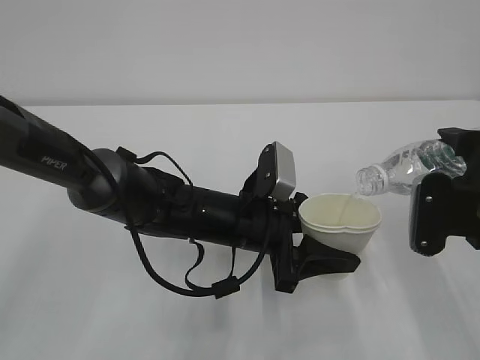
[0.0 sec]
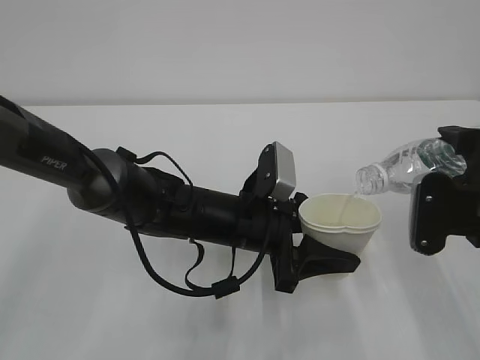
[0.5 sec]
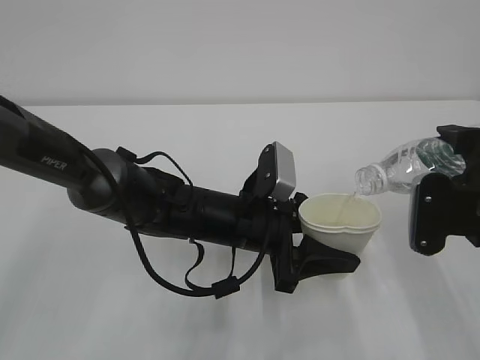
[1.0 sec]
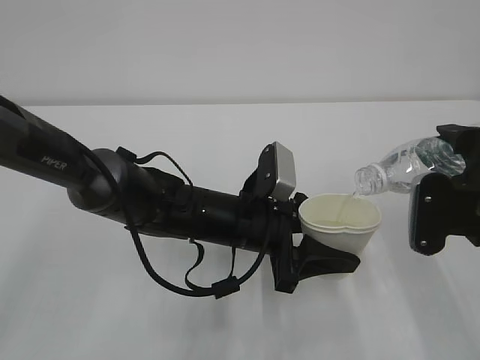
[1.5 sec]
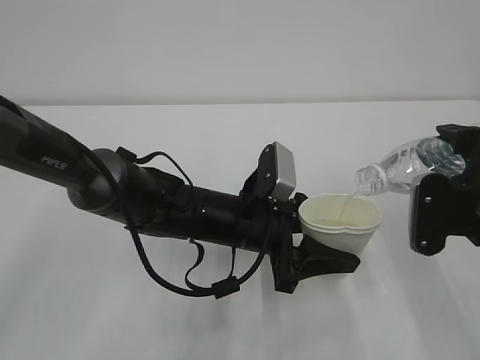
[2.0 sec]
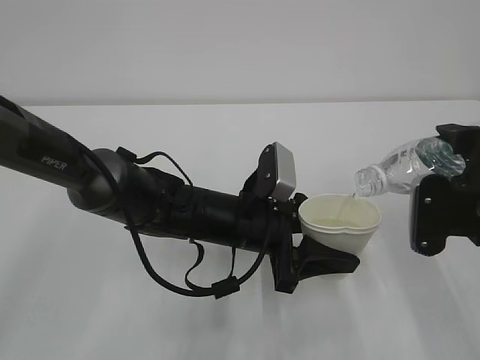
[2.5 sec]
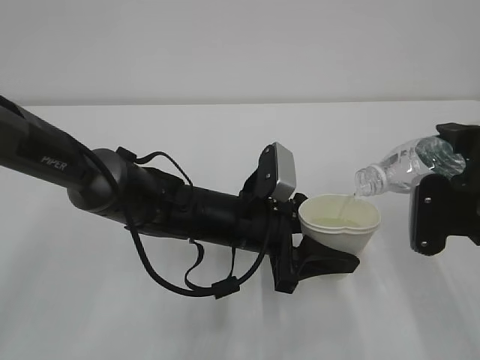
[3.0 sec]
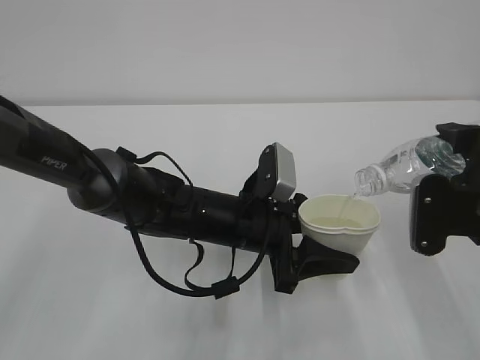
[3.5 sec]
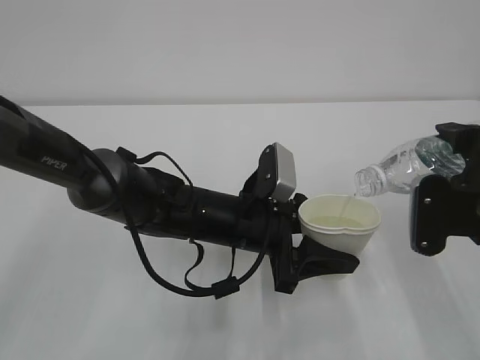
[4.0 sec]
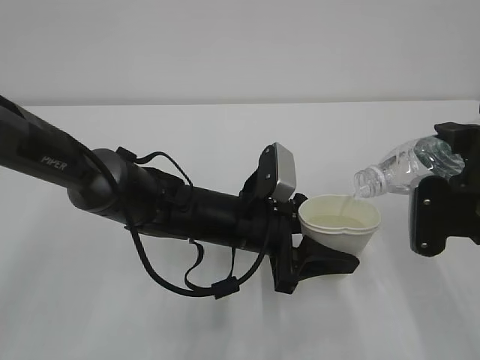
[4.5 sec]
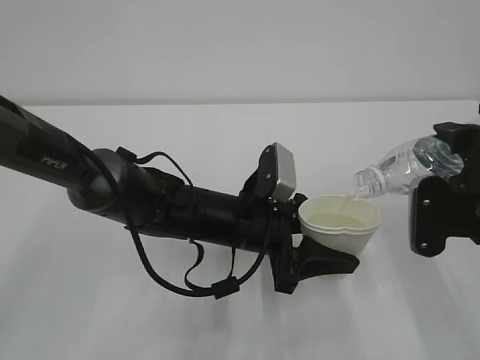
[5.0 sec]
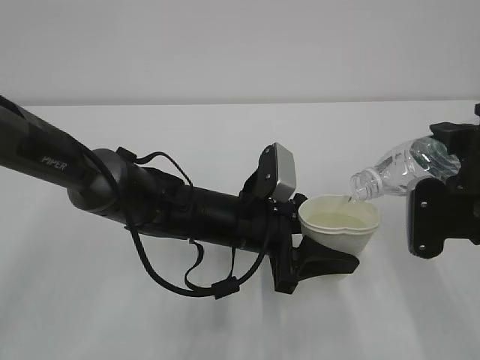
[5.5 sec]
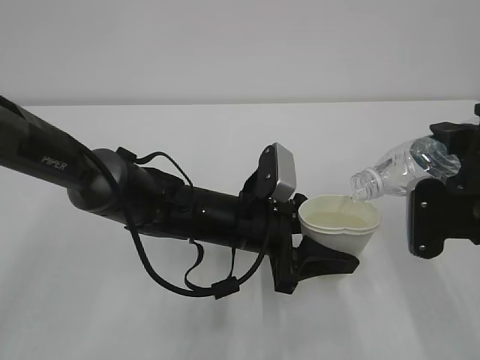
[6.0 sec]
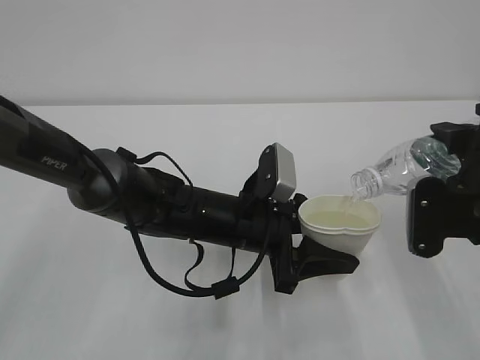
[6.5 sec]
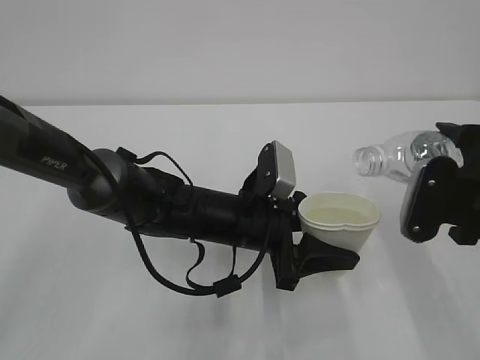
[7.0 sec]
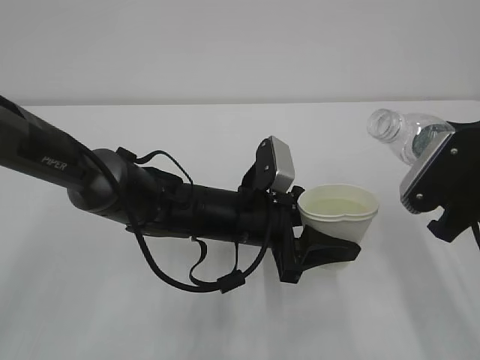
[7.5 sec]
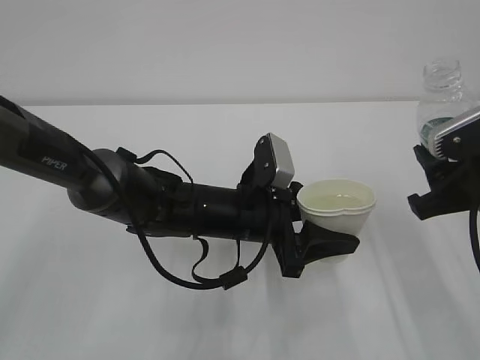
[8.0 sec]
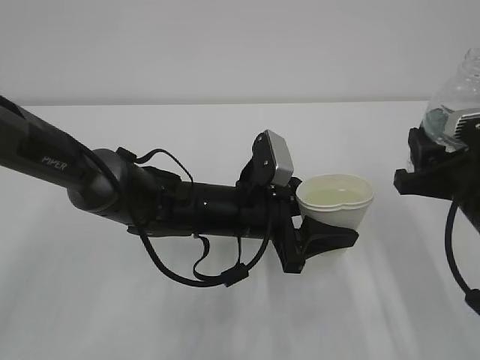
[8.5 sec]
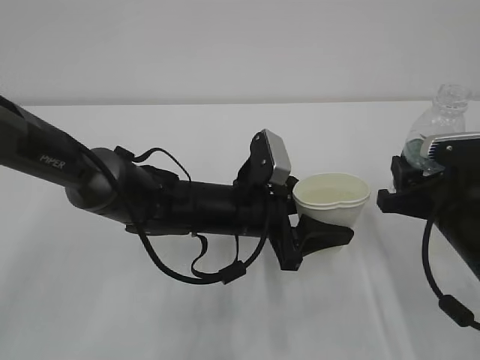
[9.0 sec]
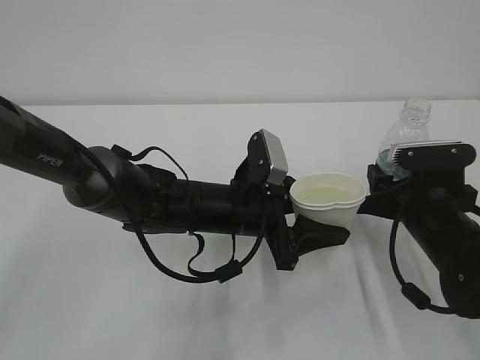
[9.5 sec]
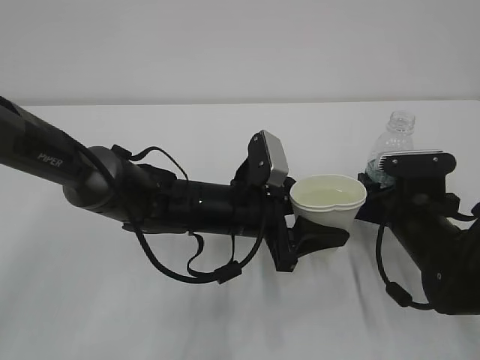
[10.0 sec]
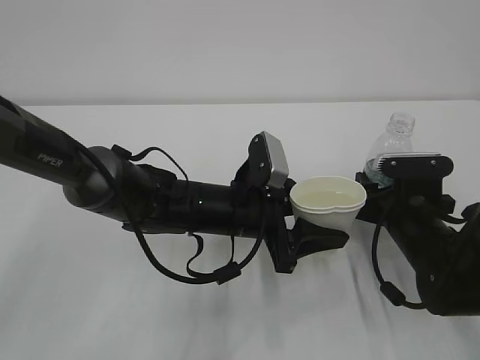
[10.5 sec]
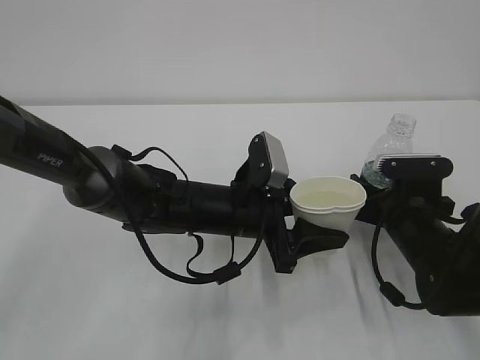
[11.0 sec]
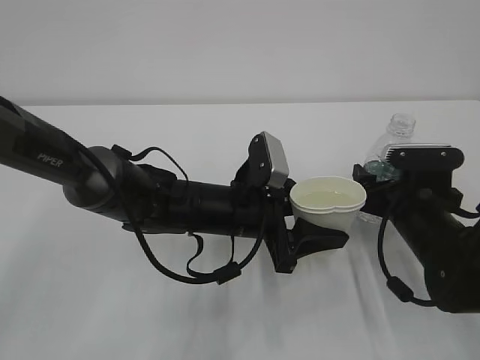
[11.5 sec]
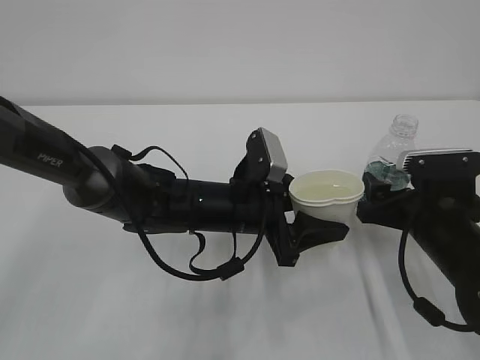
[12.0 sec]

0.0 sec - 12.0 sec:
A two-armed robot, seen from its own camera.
0.0 sec - 4.0 sec: The two grippers keep their place.
4.0 sec - 6.0 sec: Both grippers stay about where they are.
8.0 sec - 10.0 sec: The right gripper heads downward and forward, covering approximately 15 cm.
10.0 sec - 12.0 sec: The right gripper opens its fingers.

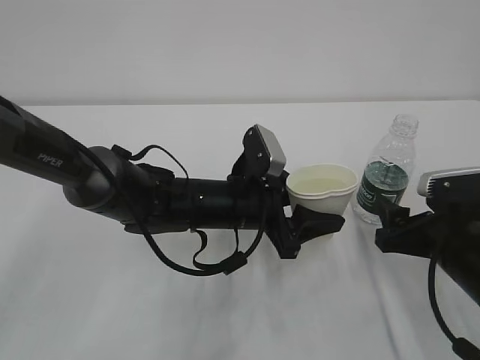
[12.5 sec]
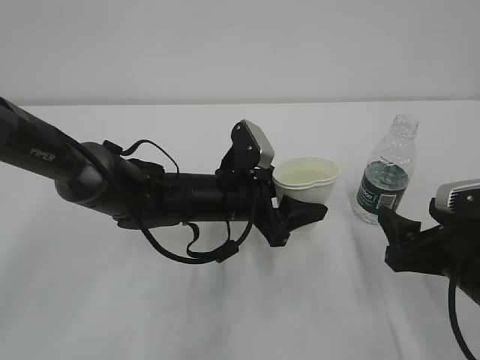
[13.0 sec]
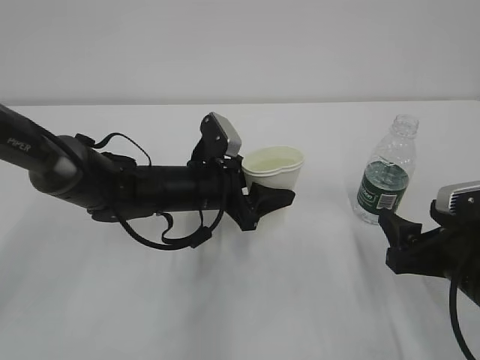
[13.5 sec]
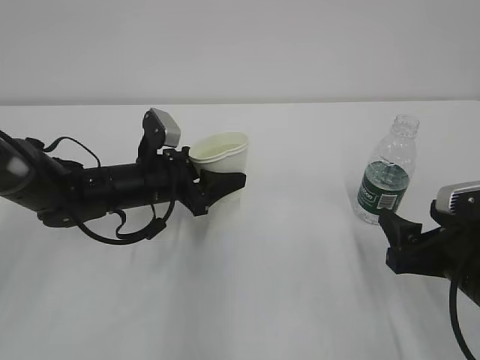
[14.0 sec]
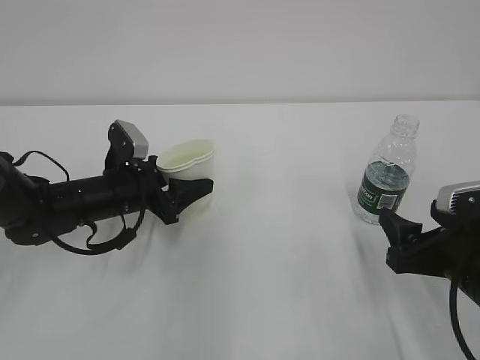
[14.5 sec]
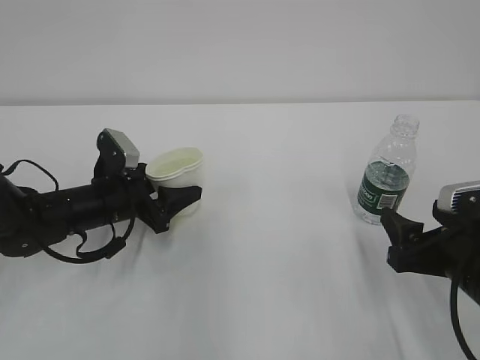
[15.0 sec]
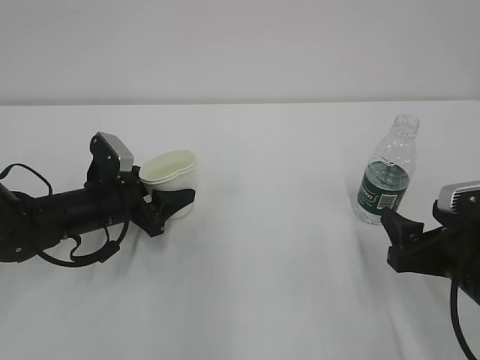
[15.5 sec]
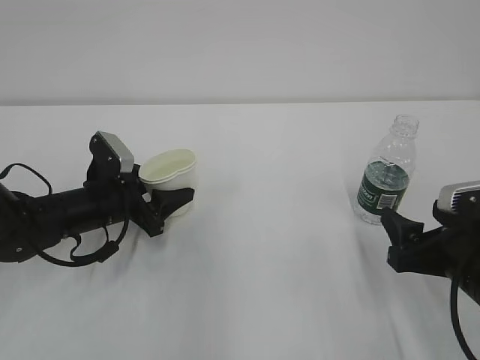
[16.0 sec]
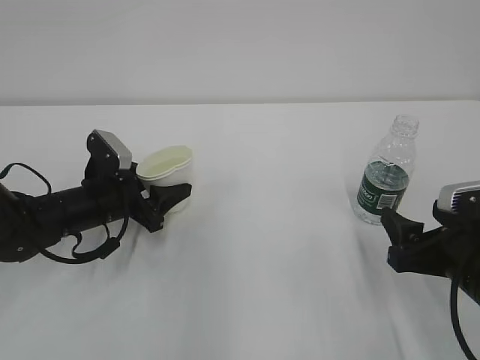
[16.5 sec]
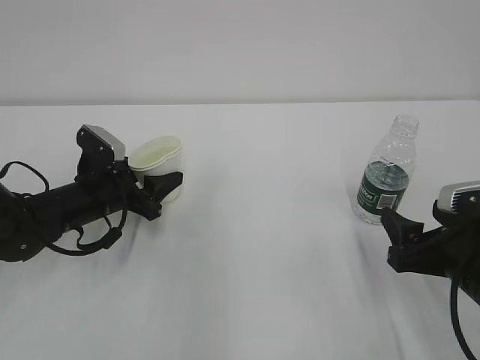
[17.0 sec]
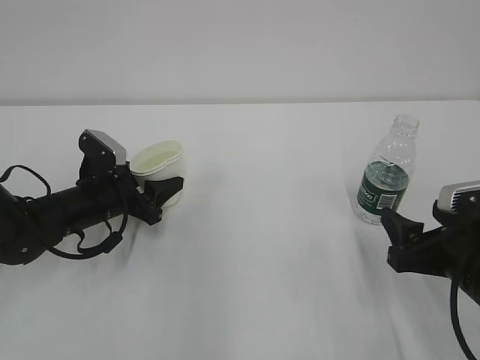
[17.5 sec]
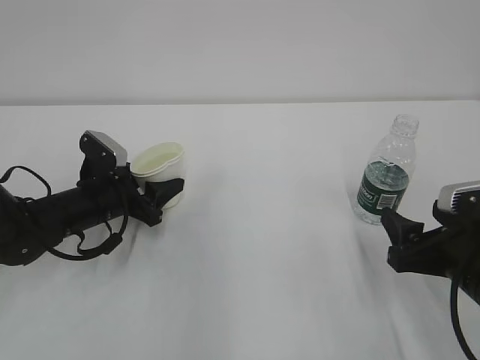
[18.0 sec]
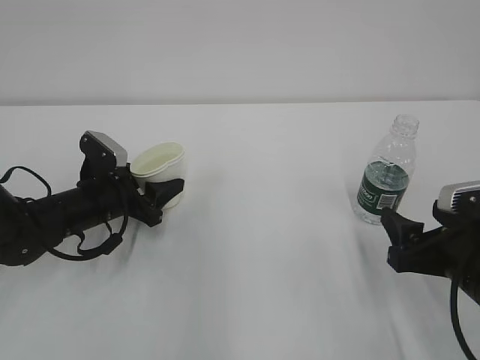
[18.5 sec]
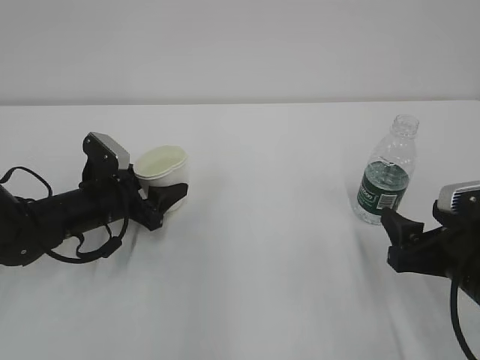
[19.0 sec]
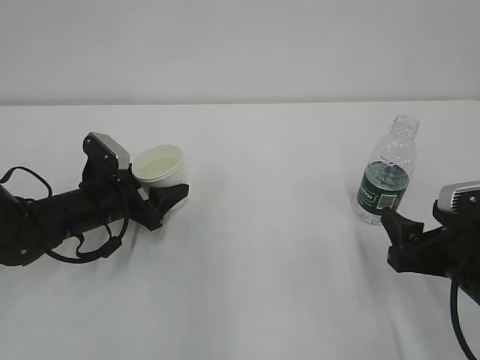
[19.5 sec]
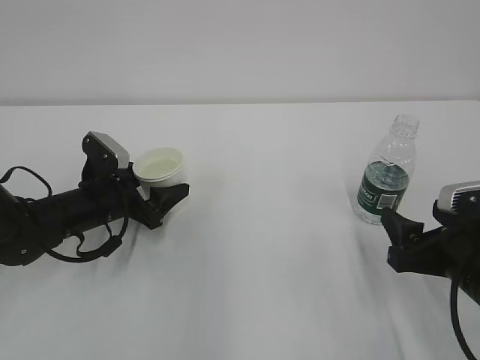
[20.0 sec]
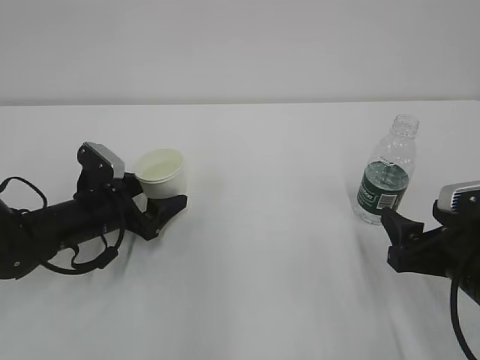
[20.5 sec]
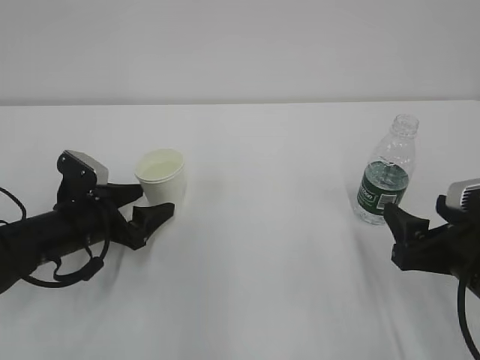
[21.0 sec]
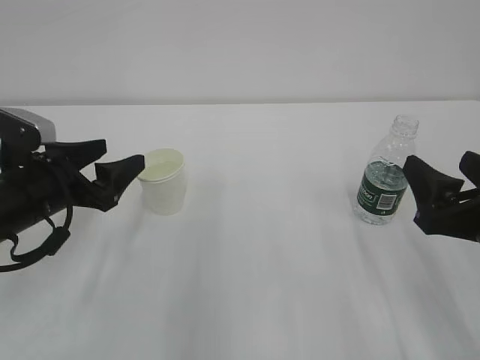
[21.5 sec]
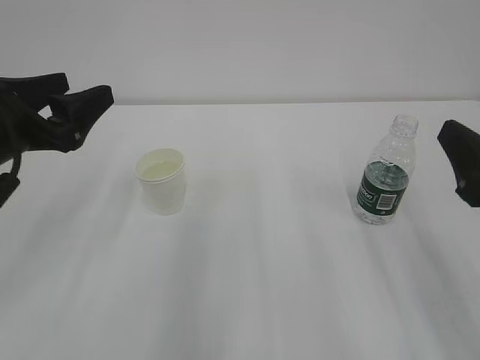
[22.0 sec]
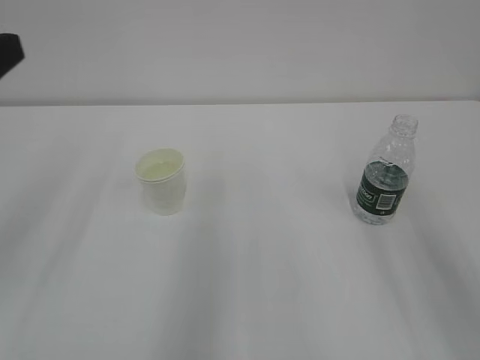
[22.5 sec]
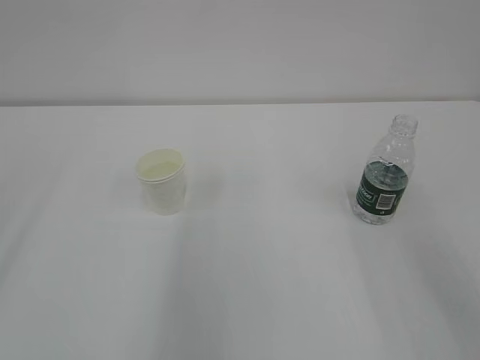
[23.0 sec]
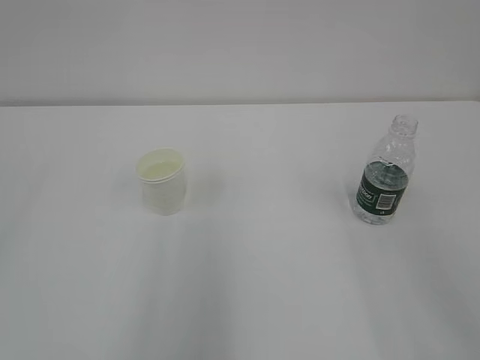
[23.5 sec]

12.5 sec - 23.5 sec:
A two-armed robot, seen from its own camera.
12.5 sec - 14.5 sec: The left gripper moves to the left, approximately 15 cm.
14.5 sec - 18.0 sec: The grippers move only a little.
18.0 sec - 20.0 sec: The left gripper opens.
20.0 sec - 21.5 sec: The right gripper travels upward by some 5 cm, while the left gripper is displaced upward and backward by some 10 cm.
21.5 sec - 23.5 sec: The right gripper heads upward and backward, covering some 20 cm; the left gripper heads backward and upward, covering approximately 30 cm.

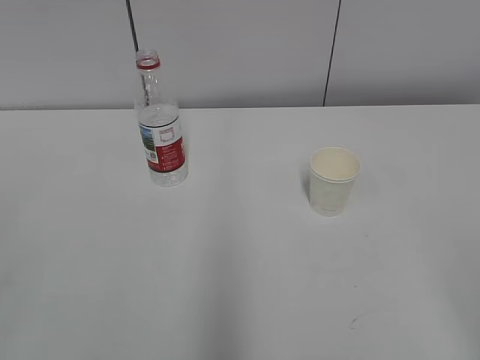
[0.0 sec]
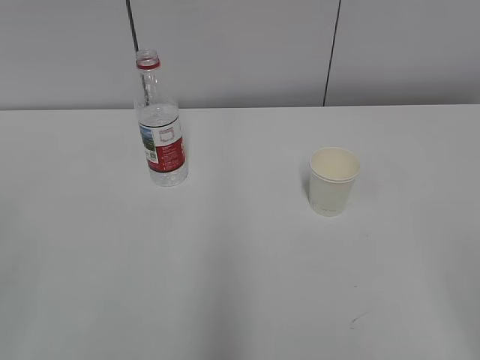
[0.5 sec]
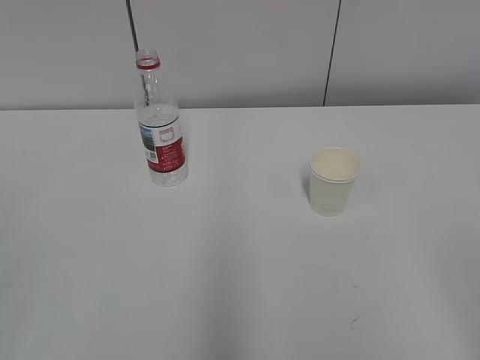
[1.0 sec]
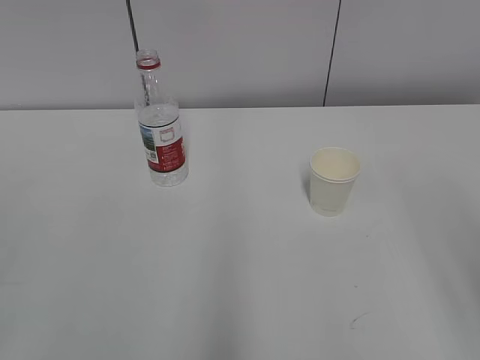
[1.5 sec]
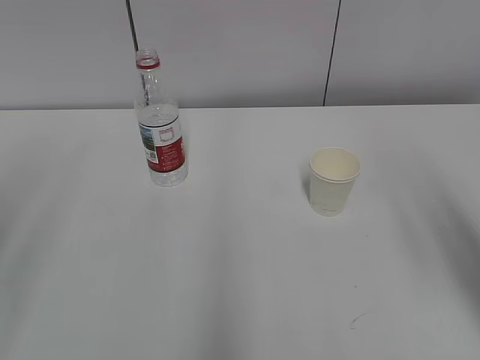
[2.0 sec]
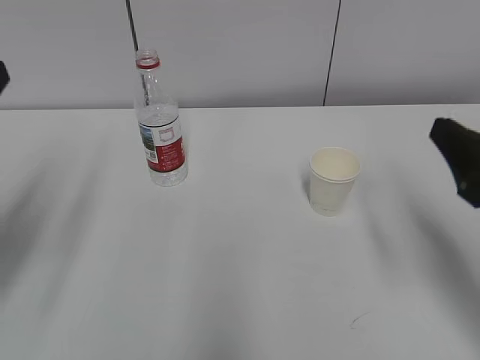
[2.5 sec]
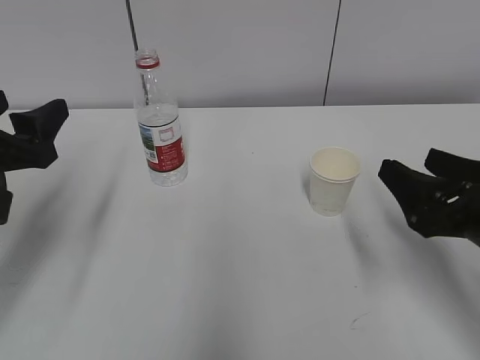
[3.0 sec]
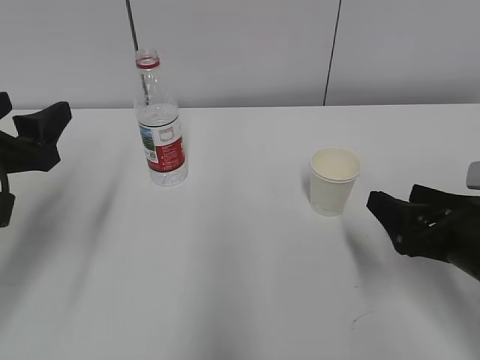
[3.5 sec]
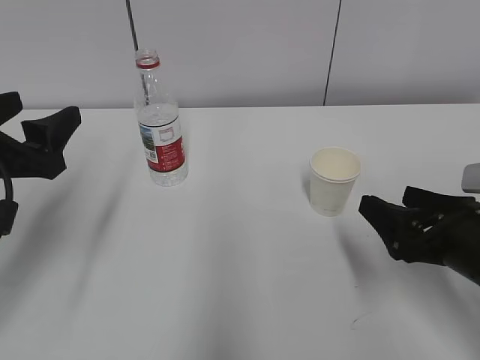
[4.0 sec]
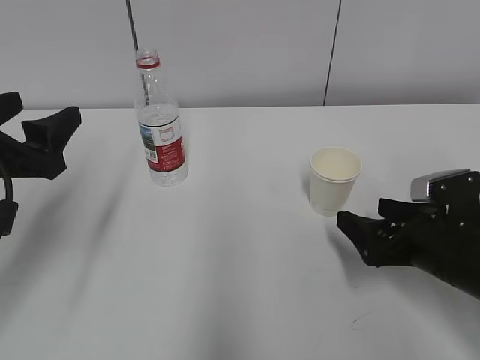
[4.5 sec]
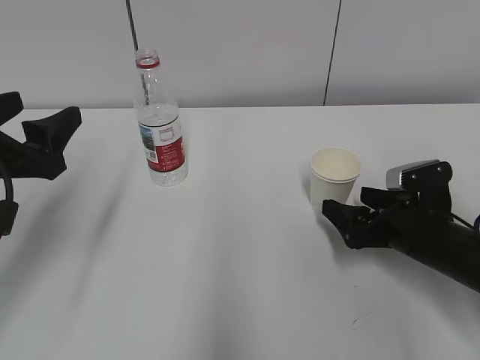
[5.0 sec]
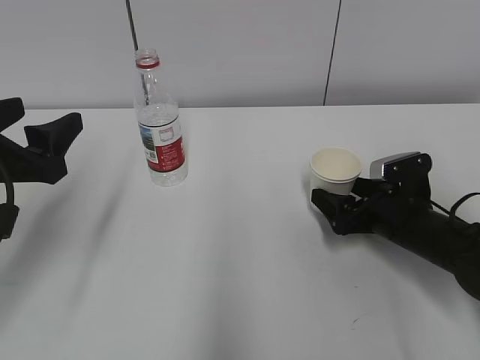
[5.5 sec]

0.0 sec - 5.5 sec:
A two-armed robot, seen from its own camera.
2.0 sec - 3.5 sec: The right gripper is displaced downward by approximately 15 cm. The left gripper is displaced downward and forward by about 20 cm.
3.5 sec - 5.5 sec: The right gripper is displaced forward and downward by some 15 cm, and opens up.
